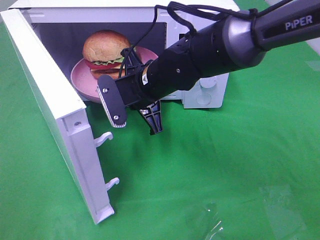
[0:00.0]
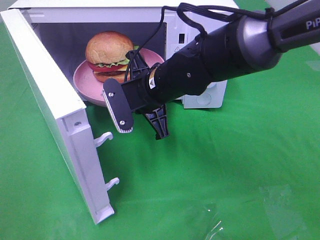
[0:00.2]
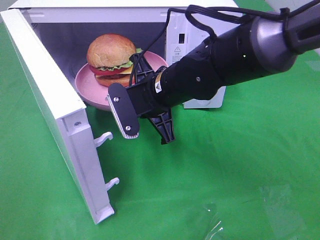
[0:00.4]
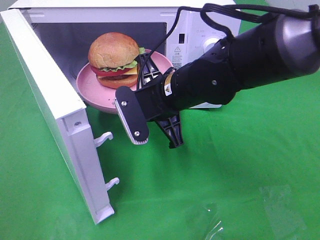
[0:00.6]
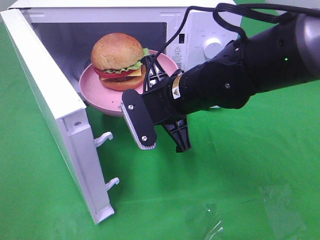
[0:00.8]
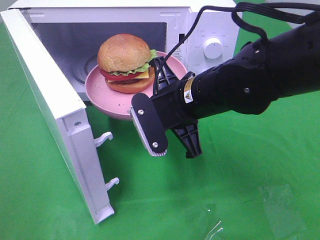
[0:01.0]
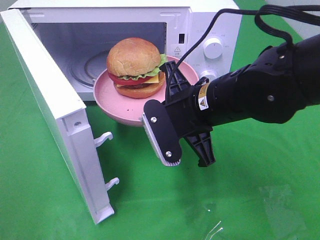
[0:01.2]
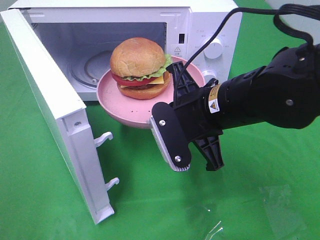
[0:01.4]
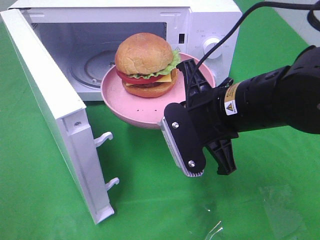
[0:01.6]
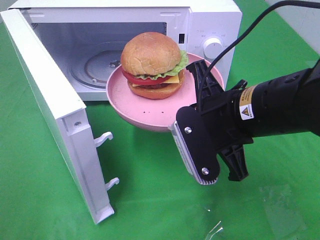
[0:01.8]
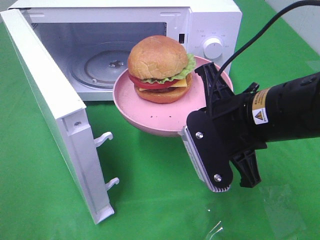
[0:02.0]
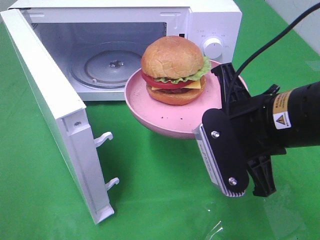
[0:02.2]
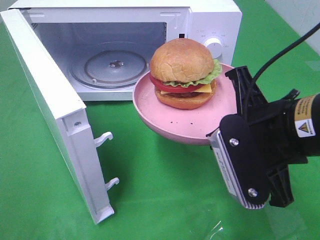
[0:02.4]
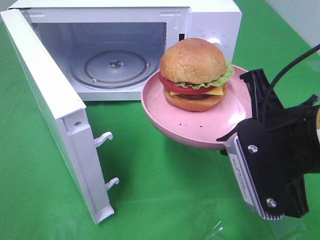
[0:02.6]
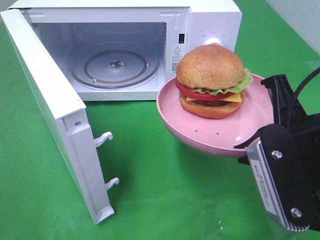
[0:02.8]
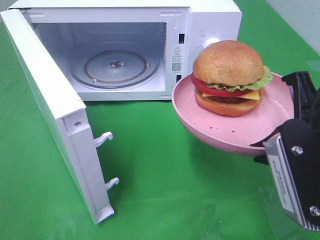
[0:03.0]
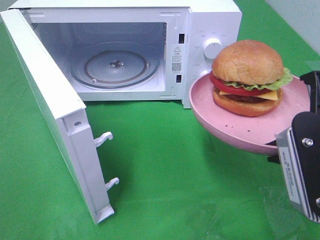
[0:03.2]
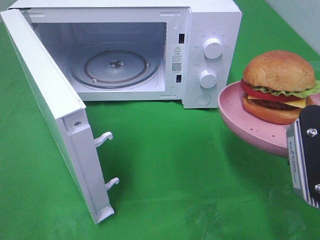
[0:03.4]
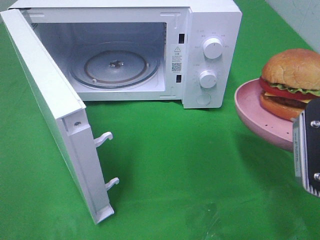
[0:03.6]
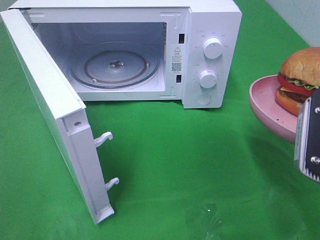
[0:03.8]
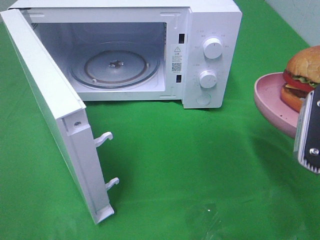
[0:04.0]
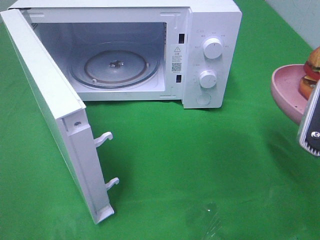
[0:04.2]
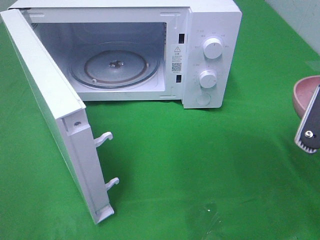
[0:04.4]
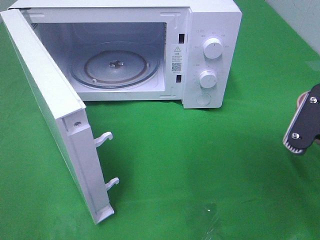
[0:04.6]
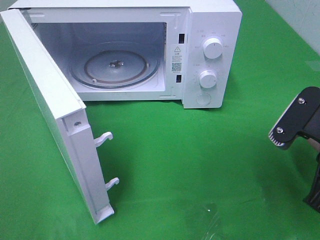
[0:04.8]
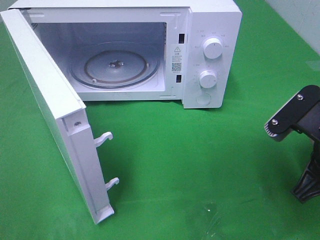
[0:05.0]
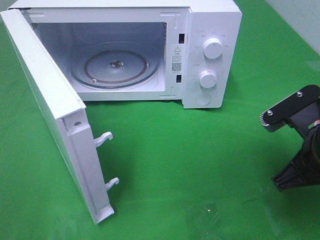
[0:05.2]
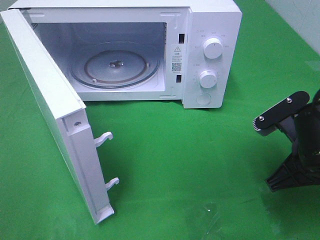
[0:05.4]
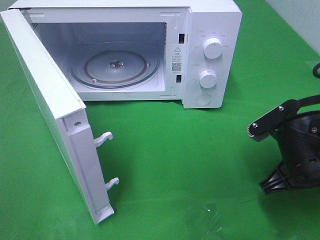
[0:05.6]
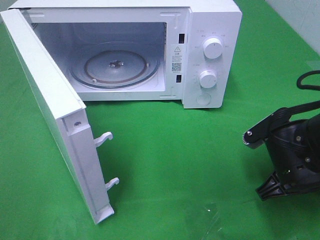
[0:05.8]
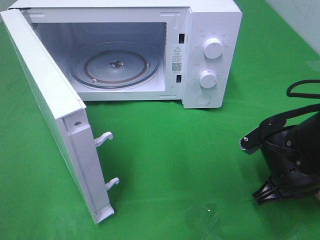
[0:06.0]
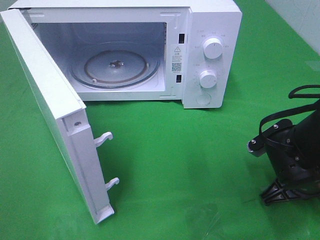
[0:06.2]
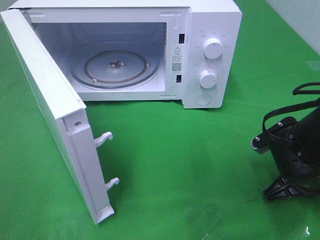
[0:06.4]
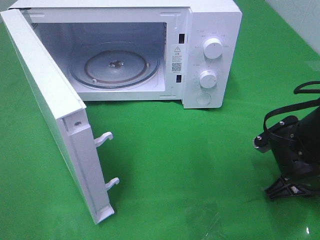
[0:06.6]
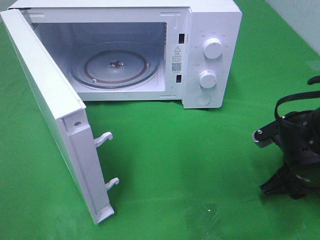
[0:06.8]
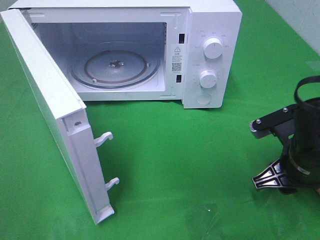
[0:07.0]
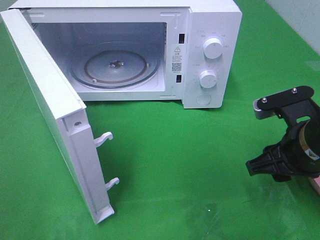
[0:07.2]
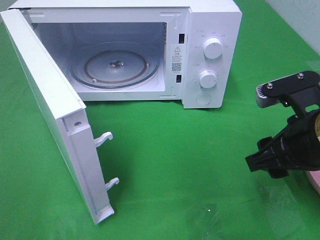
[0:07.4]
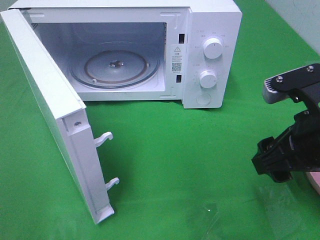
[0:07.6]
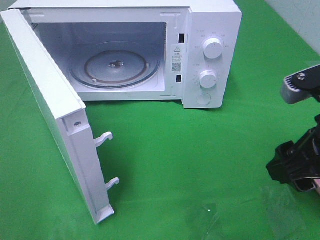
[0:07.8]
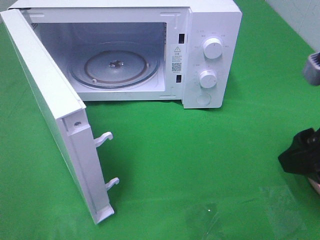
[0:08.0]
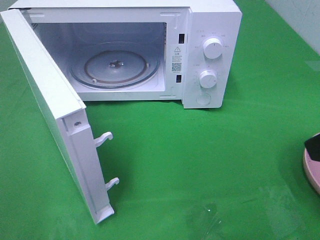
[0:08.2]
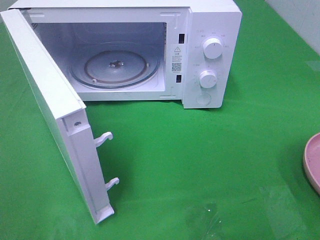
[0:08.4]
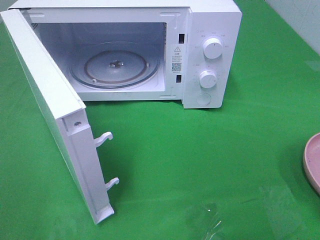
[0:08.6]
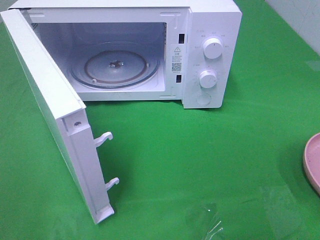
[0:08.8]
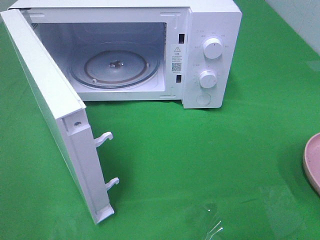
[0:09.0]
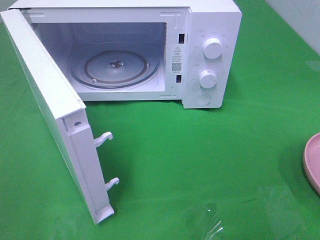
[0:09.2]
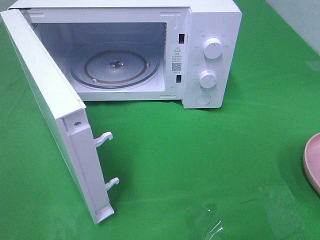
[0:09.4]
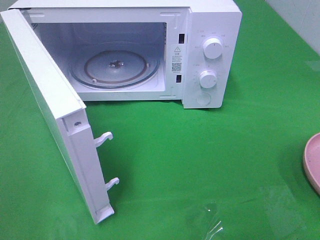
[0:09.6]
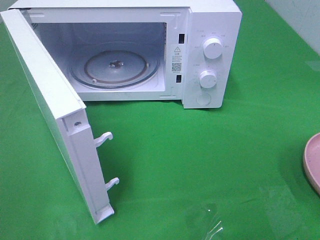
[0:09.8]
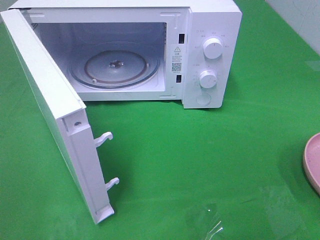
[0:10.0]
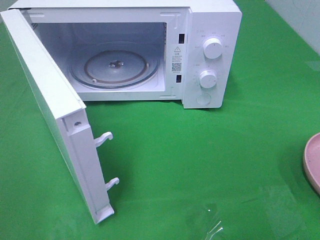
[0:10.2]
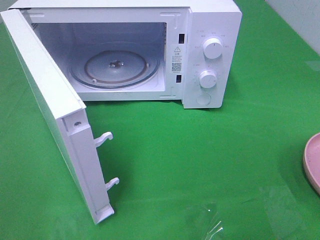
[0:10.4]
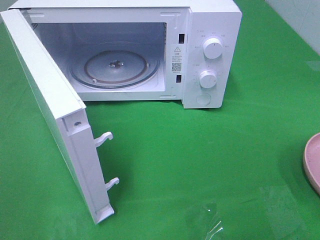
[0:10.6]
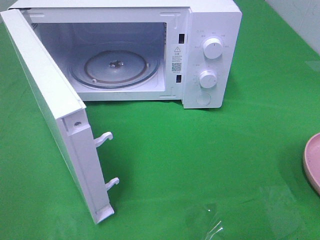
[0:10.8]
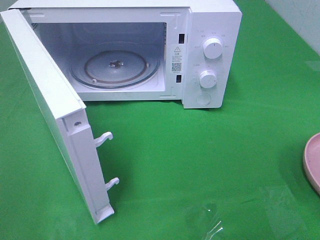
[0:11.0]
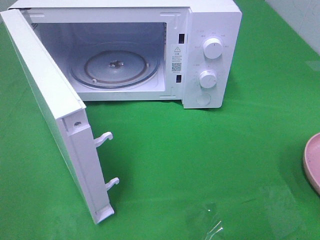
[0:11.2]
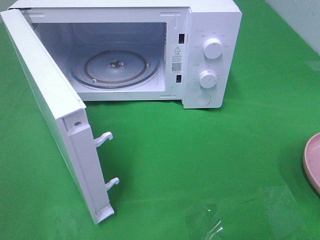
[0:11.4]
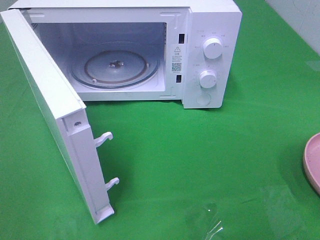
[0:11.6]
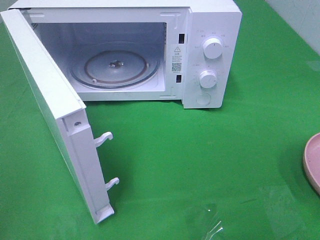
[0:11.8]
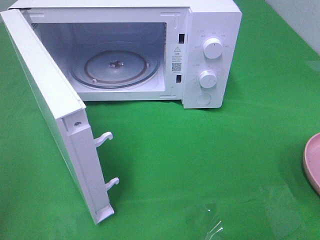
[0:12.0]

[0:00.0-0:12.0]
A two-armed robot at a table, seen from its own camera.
Task of the whole recording: Heat the burger.
Step, 0:00.0 to 0:07.6: Right hand: place the plate on the table.
0:00.0 to 0:01.6: The right gripper travels backward and to the right by roughly 15 cm.
0:01.6 to 0:03.0: The right gripper travels to the right and backward by about 10 cm.
0:04.4 to 0:06.0: The right gripper goes roughly 15 cm downward and forward.
0:06.0 to 0:07.6: The right gripper is displaced upward by about 10 cm, and opens its fingers.
0:07.6 to 0:09.0: The right gripper moves backward, upward and to the right, some 20 cm.

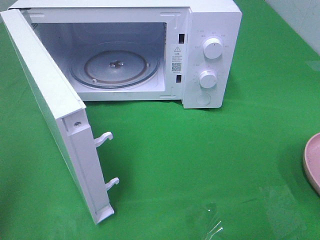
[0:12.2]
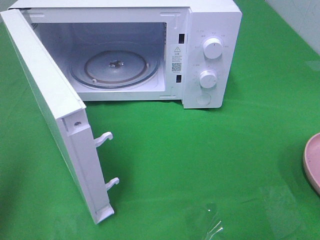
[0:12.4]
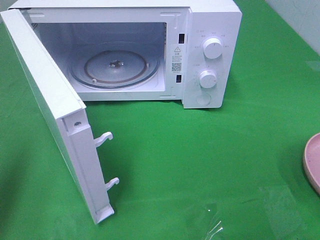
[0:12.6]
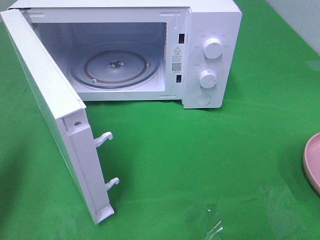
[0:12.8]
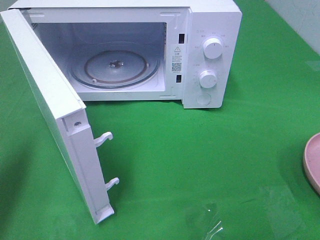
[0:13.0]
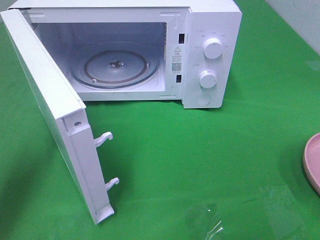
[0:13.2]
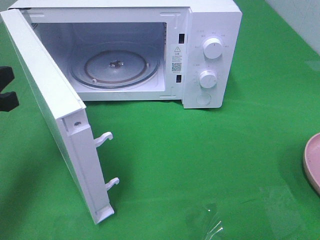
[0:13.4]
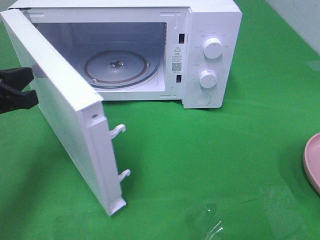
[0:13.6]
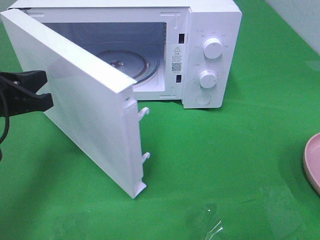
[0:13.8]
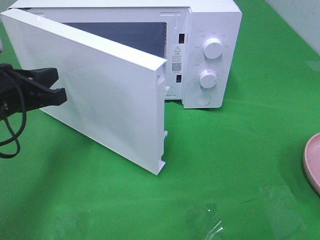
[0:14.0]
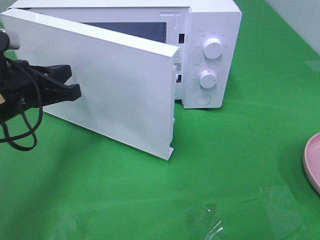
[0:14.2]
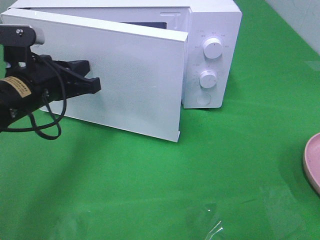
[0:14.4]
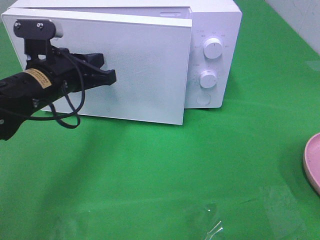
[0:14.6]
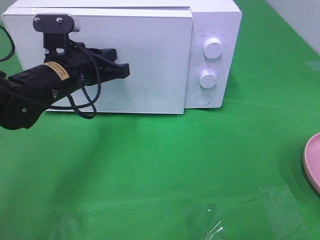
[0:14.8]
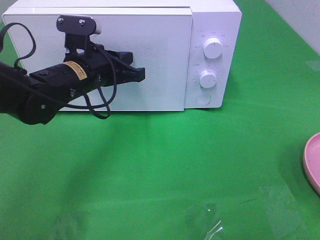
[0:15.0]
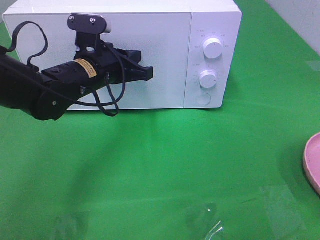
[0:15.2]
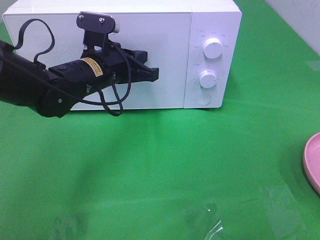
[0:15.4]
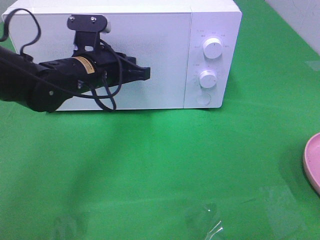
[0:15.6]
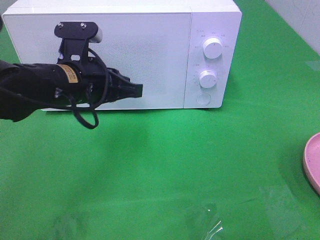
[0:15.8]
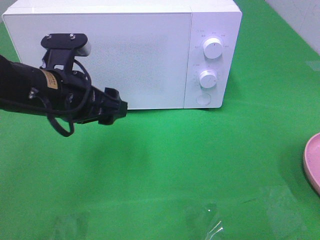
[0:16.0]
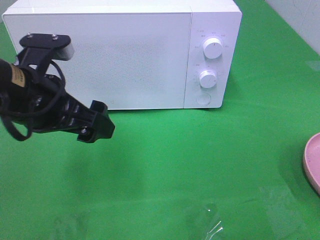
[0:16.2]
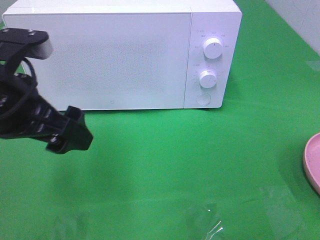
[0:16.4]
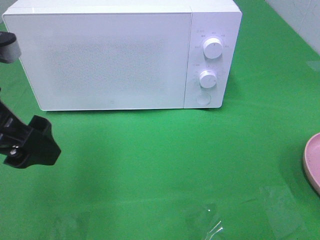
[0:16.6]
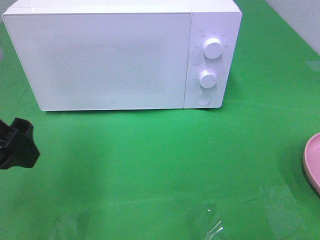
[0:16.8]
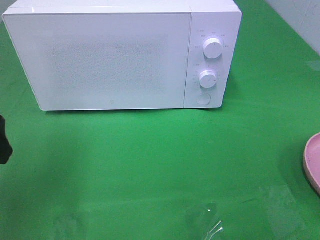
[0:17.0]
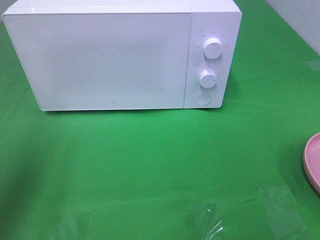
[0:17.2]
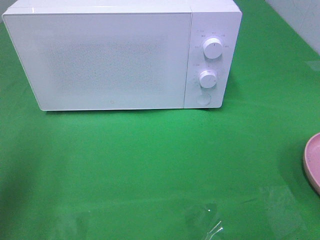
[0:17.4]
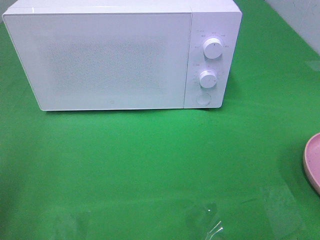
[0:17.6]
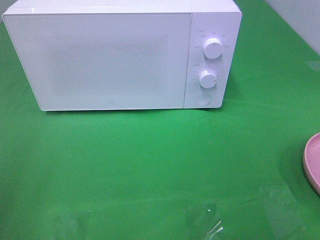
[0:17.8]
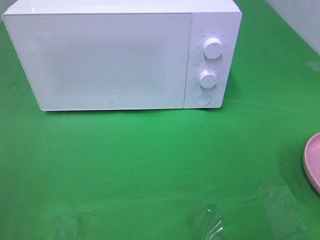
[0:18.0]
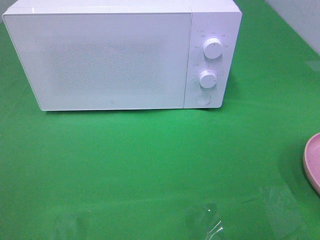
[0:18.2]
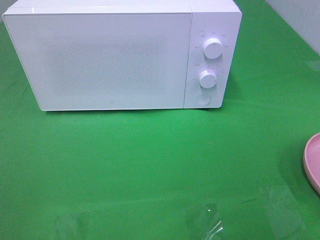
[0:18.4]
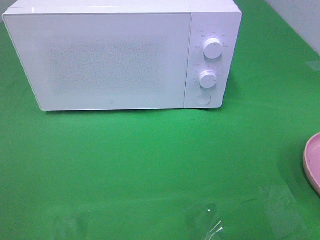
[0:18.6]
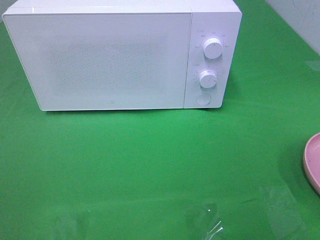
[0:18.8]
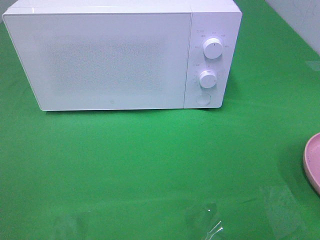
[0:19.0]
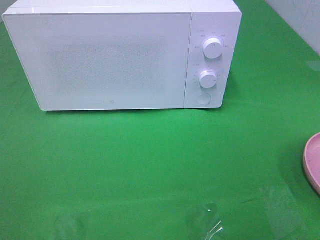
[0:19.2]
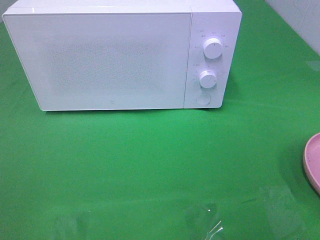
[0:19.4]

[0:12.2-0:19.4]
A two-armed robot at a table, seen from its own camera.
Task of the whole recording: Heat the burger.
Step, 0:12.2 to 0:15.8: Left hand: close the microwave door.
0:12.2 to 0:13.6: The left gripper travels forward, downward and to the right by approximately 20 cm.
0:13.6 to 0:15.0: The left gripper travels to the right and forward by about 15 cm.
0:15.0 to 0:16.6: The left gripper shifts roughly 20 cm backward, upward and to the left, and opens.
0:16.6 to 0:18.0: The left gripper is displaced backward and to the left by about 20 cm.

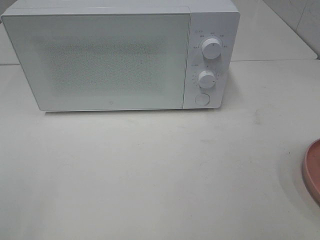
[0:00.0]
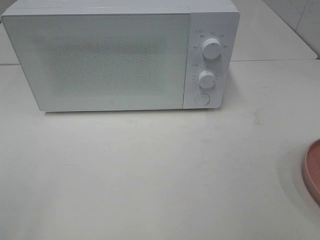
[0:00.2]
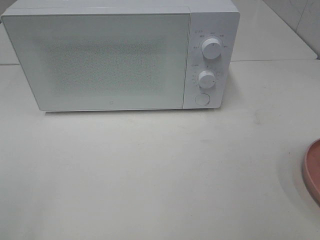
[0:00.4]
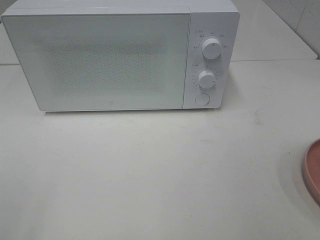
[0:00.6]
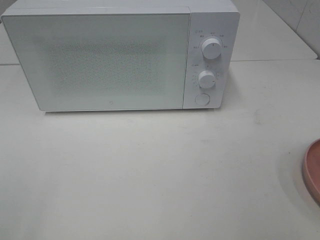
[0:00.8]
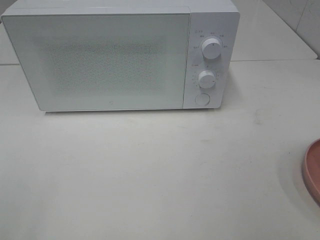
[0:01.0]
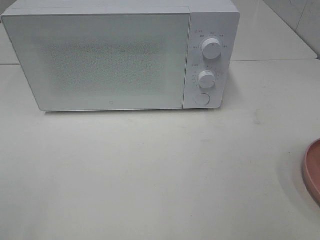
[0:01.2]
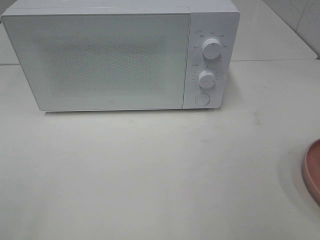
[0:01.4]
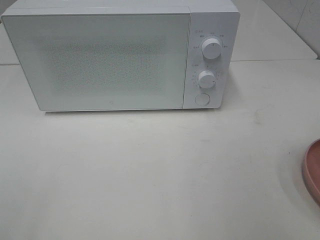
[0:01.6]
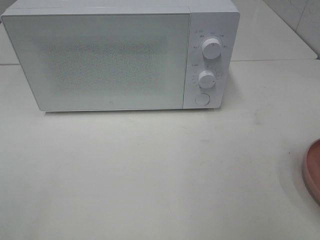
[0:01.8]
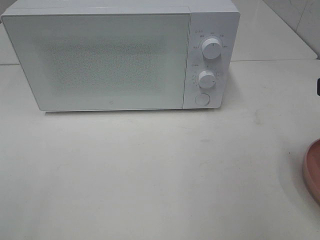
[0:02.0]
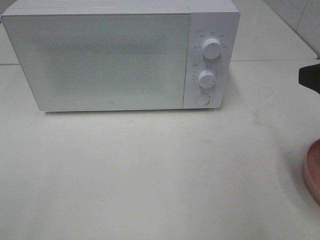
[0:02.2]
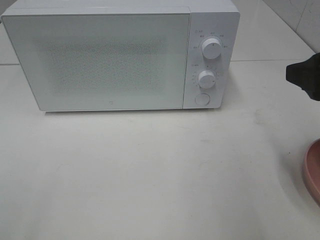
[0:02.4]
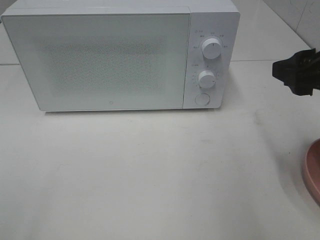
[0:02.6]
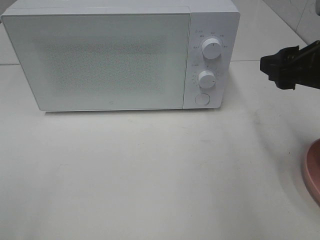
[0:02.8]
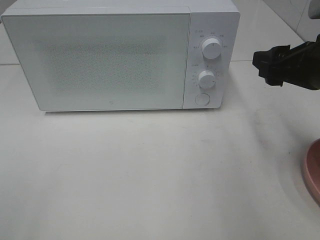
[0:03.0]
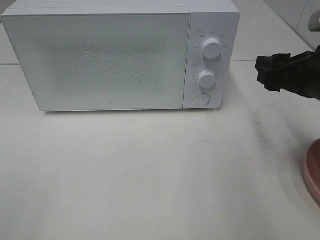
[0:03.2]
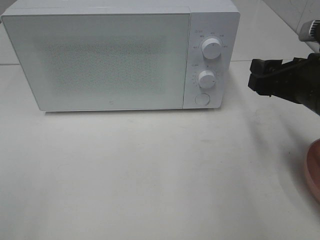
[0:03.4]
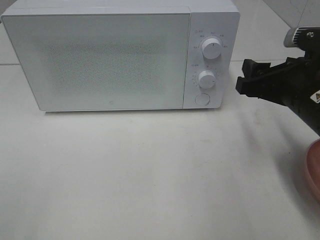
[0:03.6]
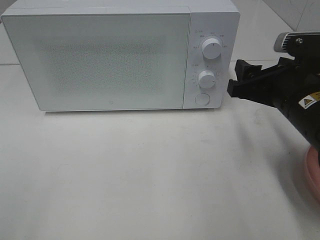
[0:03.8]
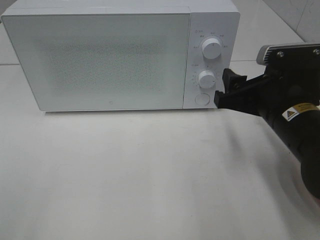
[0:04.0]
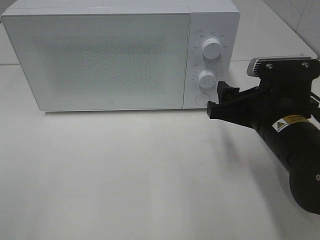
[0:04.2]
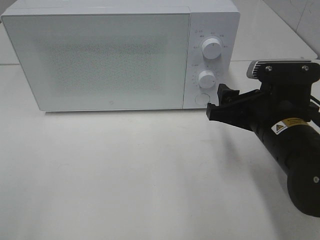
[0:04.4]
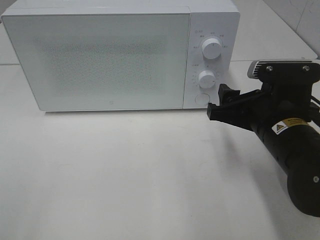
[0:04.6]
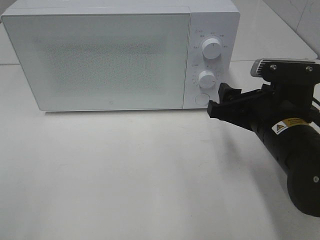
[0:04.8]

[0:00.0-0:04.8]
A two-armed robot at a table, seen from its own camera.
Task of the whole recording: Heat the burger.
0:01.6 to 0:03.2: The right gripper moves forward and downward, about 15 cm.
0:03.2 to 0:04.8: The right gripper goes some 10 cm to the left and downward.
